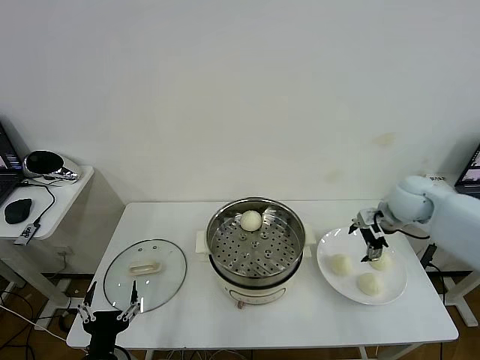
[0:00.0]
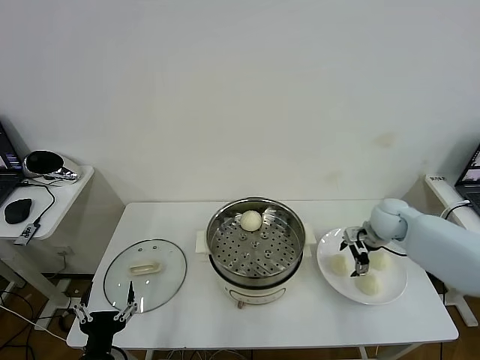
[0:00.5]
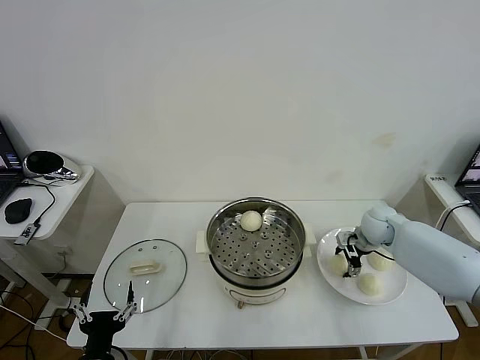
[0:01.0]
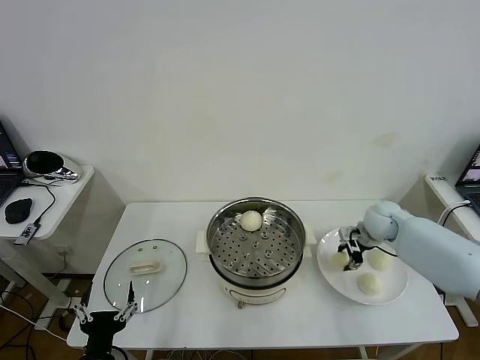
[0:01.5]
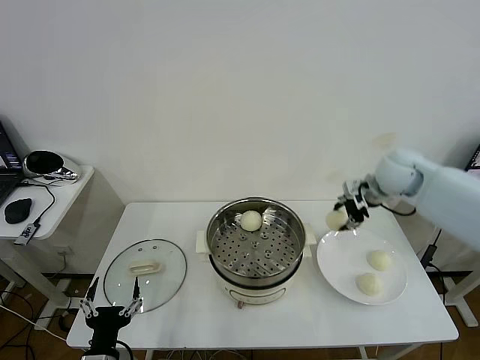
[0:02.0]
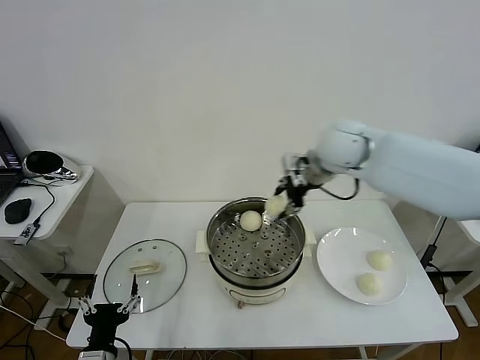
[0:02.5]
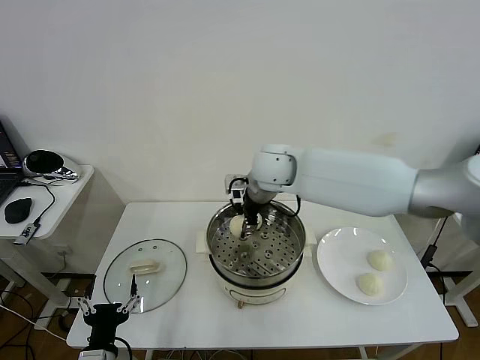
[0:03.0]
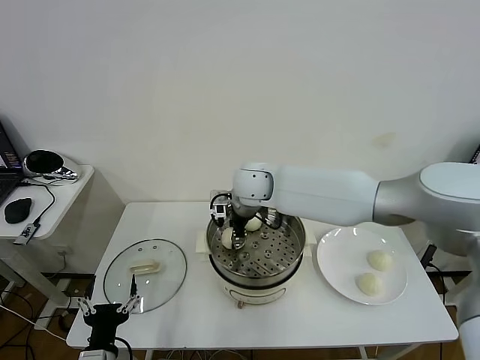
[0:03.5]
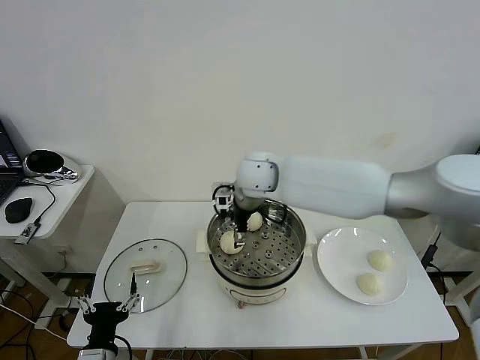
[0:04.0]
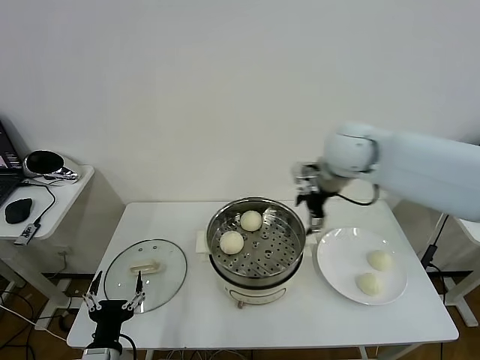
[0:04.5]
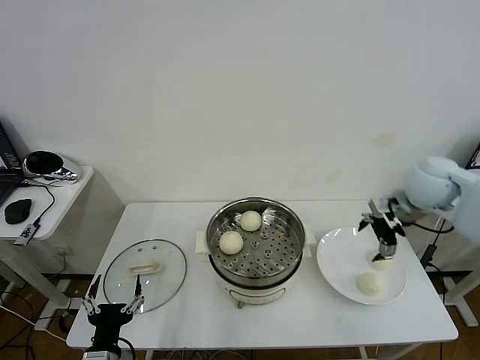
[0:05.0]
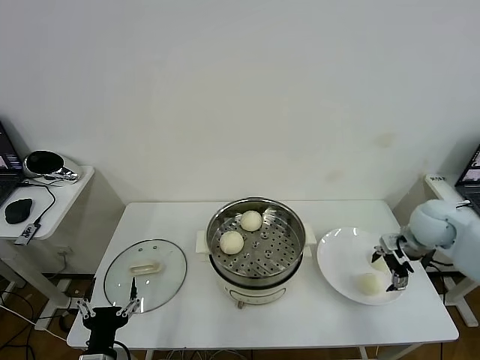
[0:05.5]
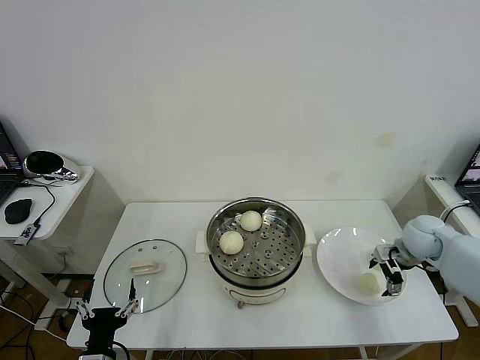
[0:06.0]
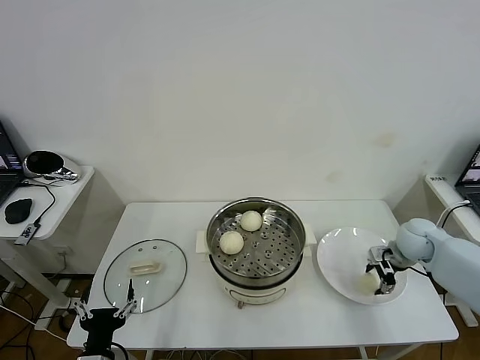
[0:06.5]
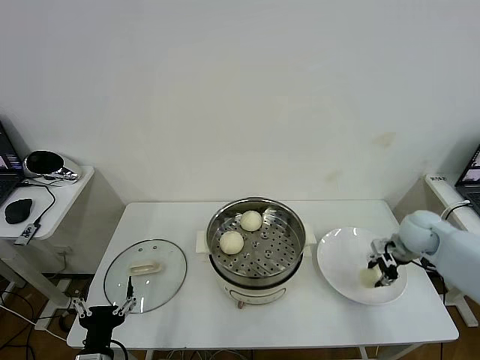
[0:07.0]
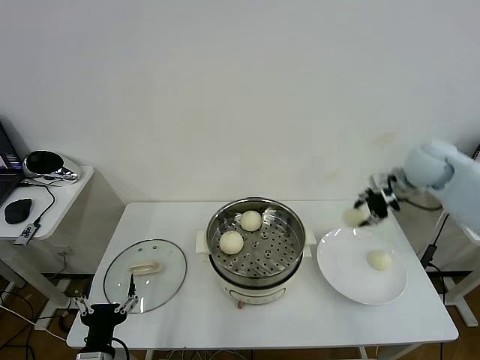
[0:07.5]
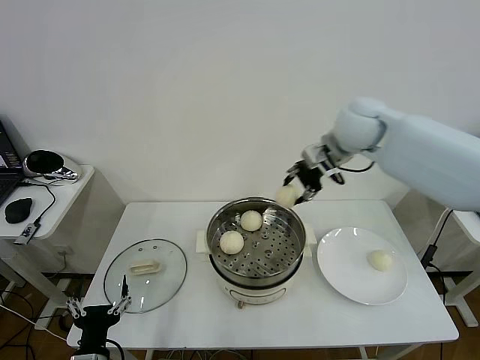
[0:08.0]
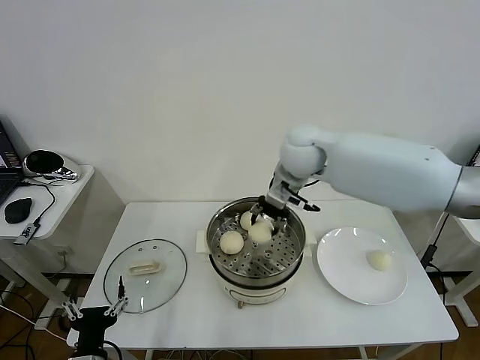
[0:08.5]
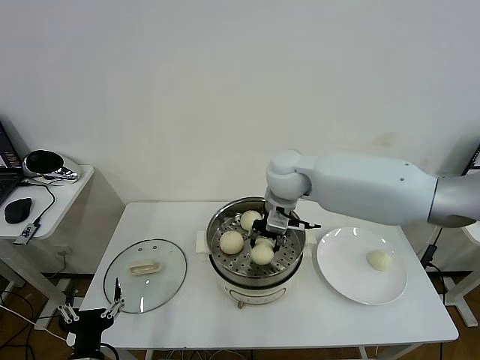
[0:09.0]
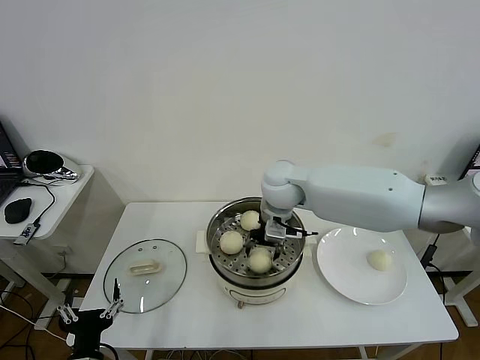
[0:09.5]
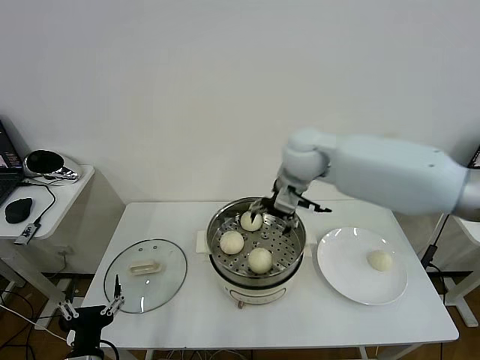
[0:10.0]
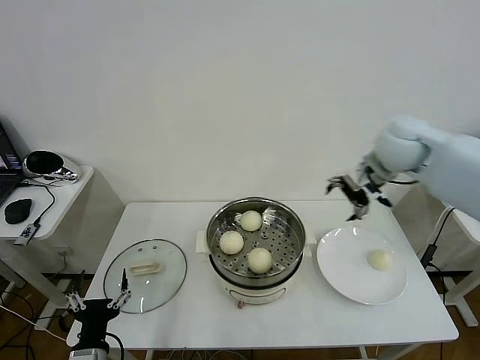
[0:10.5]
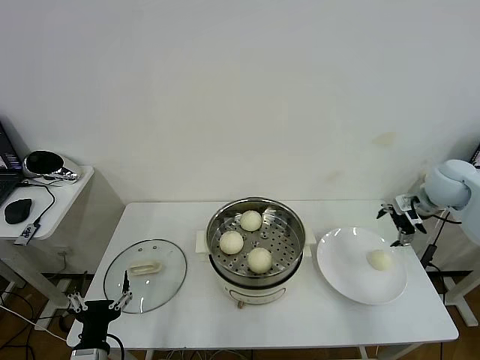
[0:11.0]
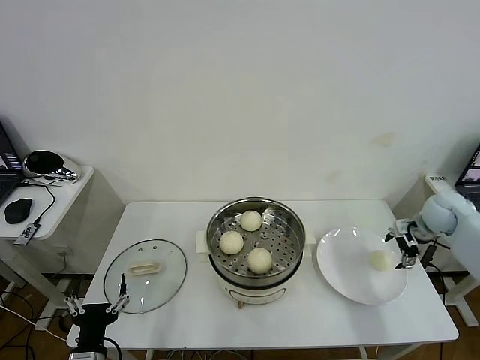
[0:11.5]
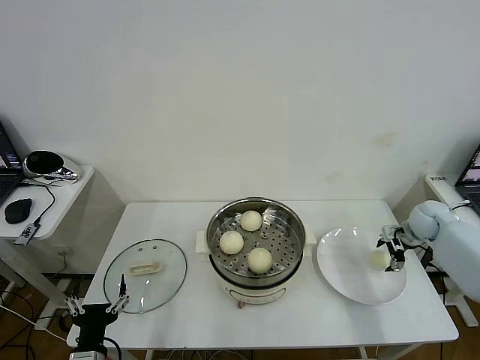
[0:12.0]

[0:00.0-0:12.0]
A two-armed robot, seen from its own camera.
Task of the whole recording: take steamed baozi put them in steamer then cover it.
Step, 0:01.5 to 0:03.5: Place the baozi on the steamer with right gripper.
Step, 0:04.0 to 0:06.5: Grasp the baozi in the plate with right gripper.
Step, 0:07.0 to 0:09.5: Place the baozi on the steamer with right gripper.
0:00.0 to 0:02.0: The right gripper is displaced upward and to the left by approximately 10 cm, and closes its fingers.
0:02.0 to 0:04.0: The right gripper heads to the left, covering some 25 cm, and opens up.
0:04.0 to 0:06.0: The right gripper shifts about 40 cm to the right and downward.
0:06.0 to 0:08.0: The right gripper moves upward and to the left, approximately 35 cm, and closes its fingers.
0:08.0 to 0:10.0: The right gripper heads to the left, covering roughly 5 cm, and opens.
0:10.0 to 0:12.0: The right gripper heads to the right and downward, covering some 40 cm.

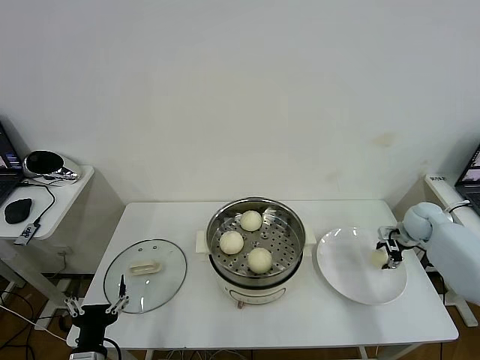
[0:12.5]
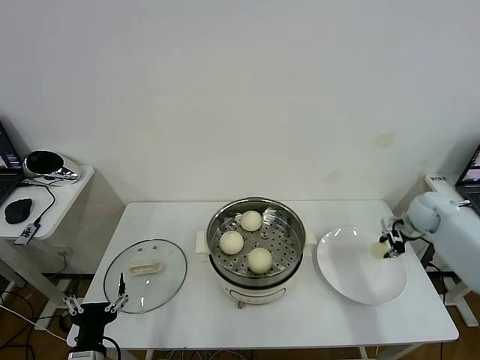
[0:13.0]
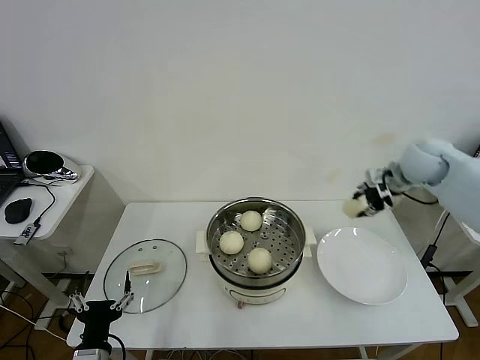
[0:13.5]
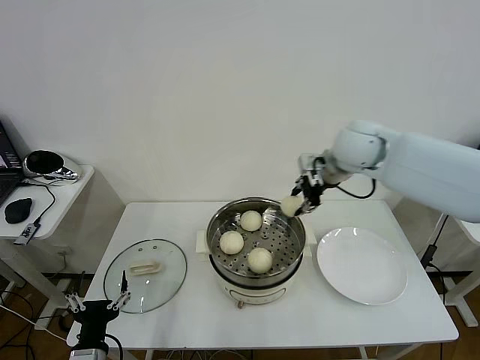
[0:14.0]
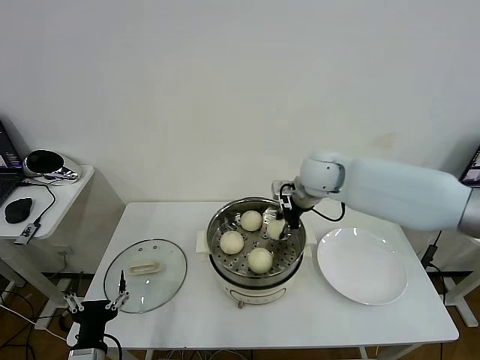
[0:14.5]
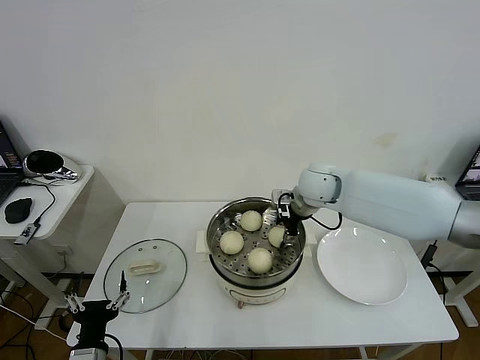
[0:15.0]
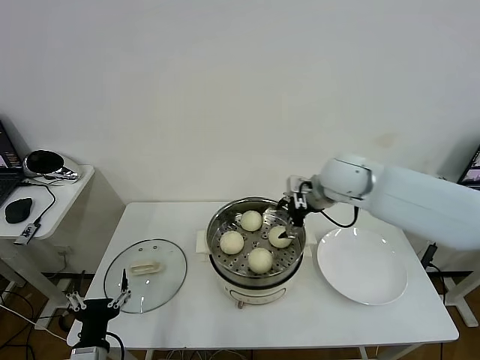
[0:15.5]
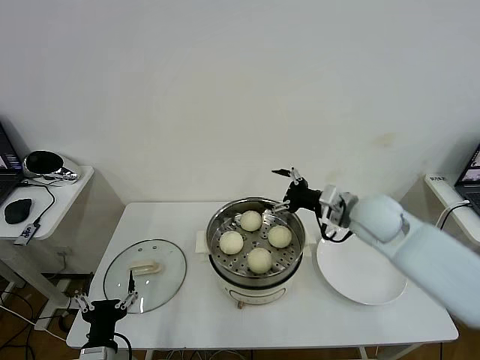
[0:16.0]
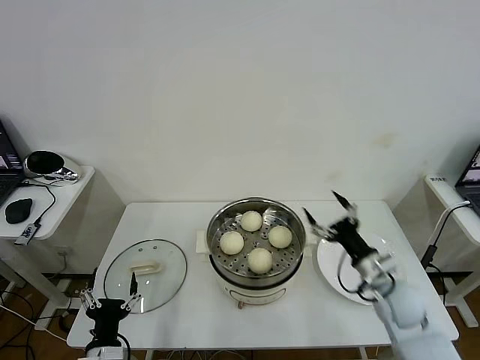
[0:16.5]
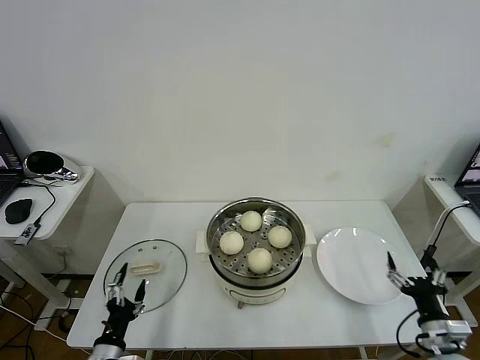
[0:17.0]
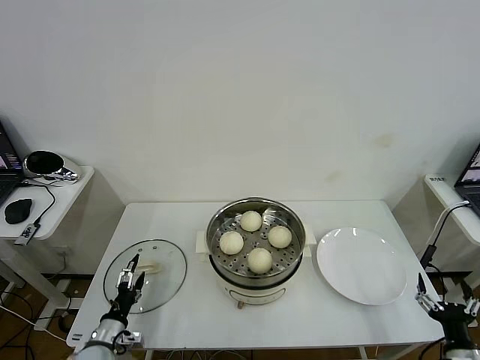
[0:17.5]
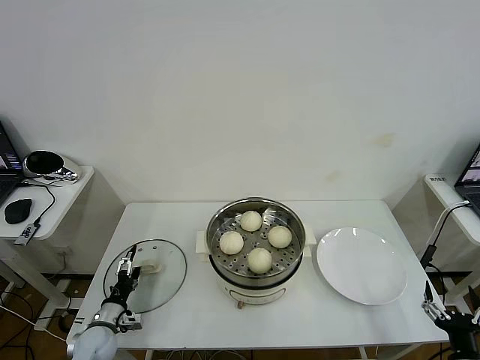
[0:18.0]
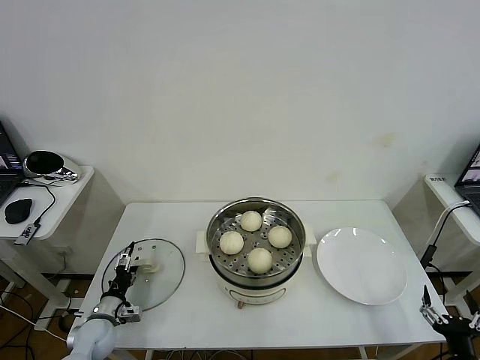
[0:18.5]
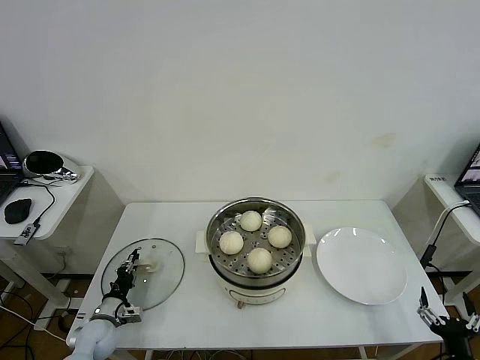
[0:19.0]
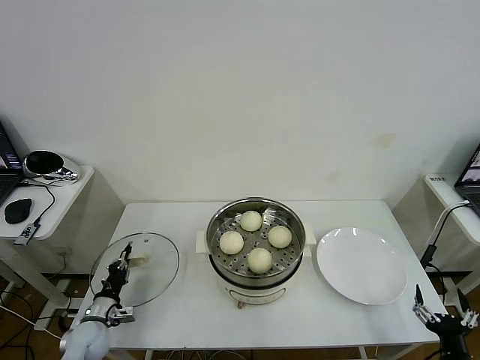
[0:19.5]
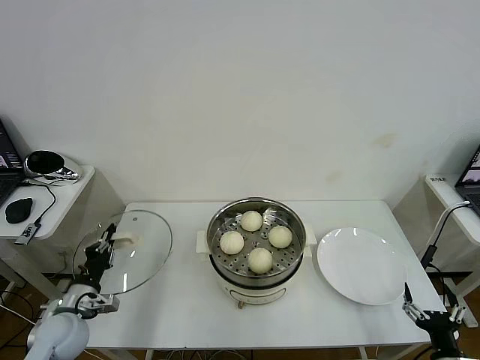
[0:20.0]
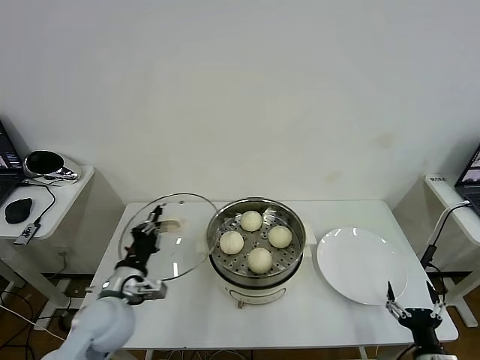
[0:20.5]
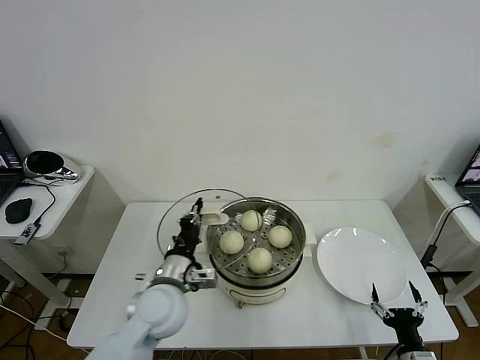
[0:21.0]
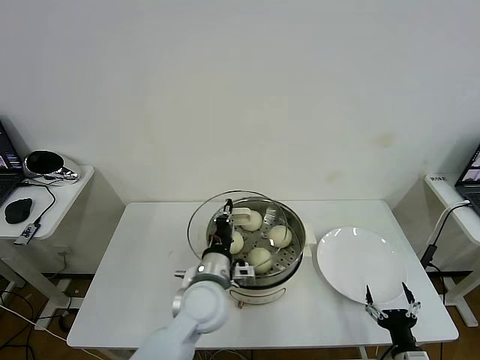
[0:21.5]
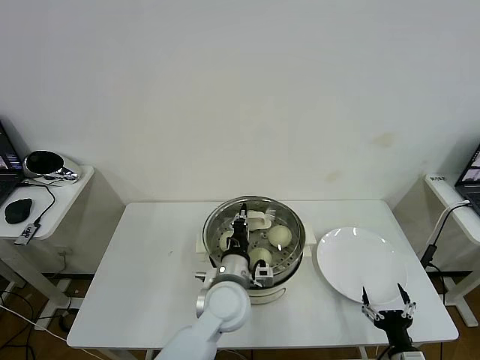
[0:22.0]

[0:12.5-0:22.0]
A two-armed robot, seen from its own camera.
Task of the whole recording: take steamed baozi put them in steamer then cover it.
Step, 0:13.0 to 0:15.0: Place the baozi on the steamer with right gripper.
Step, 0:16.0 to 0:19.0: Grasp the pot lid with left gripper.
0:12.5 to 0:14.5: The right gripper travels to the left and upward by approximately 35 cm, and closes up.
0:14.5 to 0:16.5: The right gripper goes some 30 cm backward, downward and to the right, and opens.
0:16.5 to 0:18.0: The left gripper shifts about 20 cm forward, downward and to the left. The right gripper heads backward and to the right, covering some 25 cm.
0:18.0 to 0:20.0: The left gripper shifts approximately 10 cm upward, and closes up.
0:20.0 to 0:22.0: The left gripper shifts approximately 35 cm to the right. The right gripper heads to the left, covering some 5 cm.

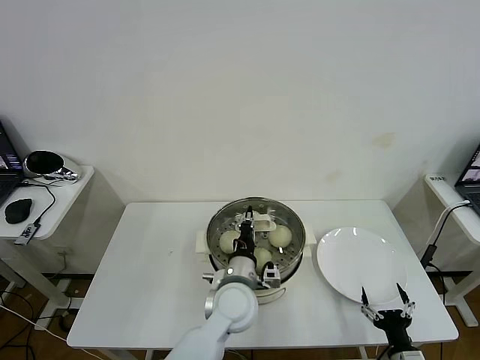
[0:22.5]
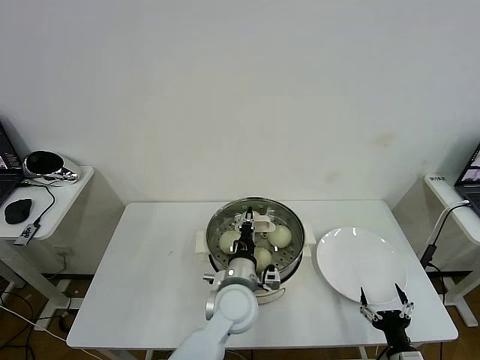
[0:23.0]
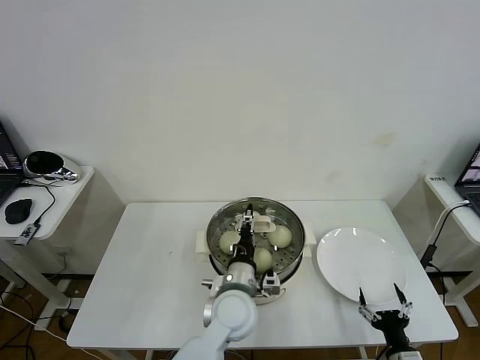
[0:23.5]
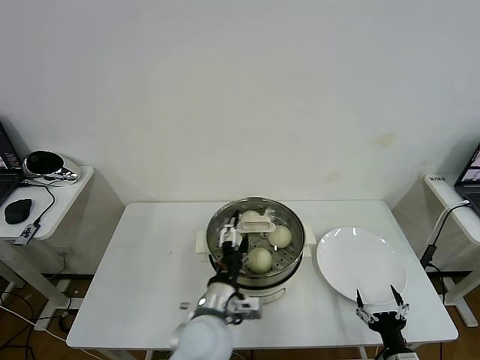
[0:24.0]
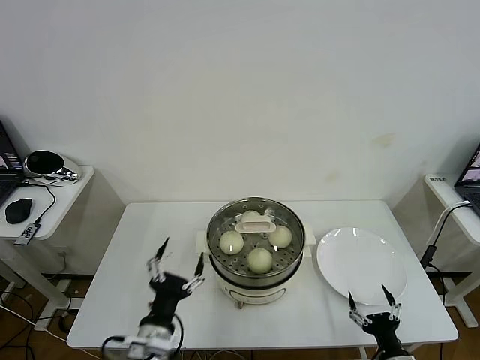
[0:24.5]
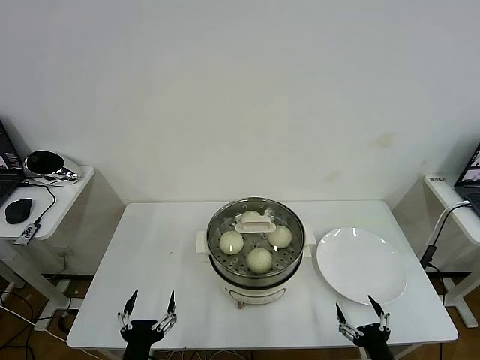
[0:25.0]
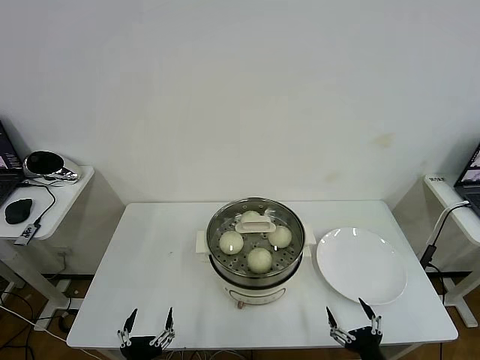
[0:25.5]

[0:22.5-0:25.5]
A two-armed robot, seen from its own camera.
Task of the whole recording: take steamed baozi put them in steamer then cover it.
0:22.5 to 0:24.0: The left gripper travels backward by approximately 5 cm, and opens.
0:24.0 to 0:25.5: The left gripper moves to the left, backward and downward, roughly 25 cm, while the right gripper moves some 5 cm.
